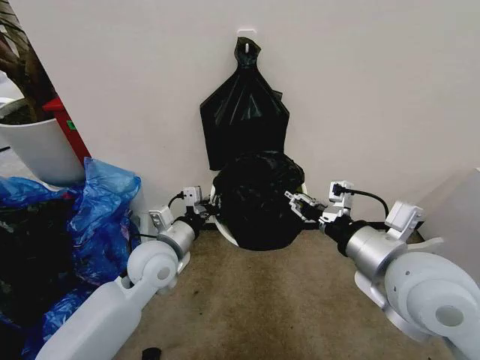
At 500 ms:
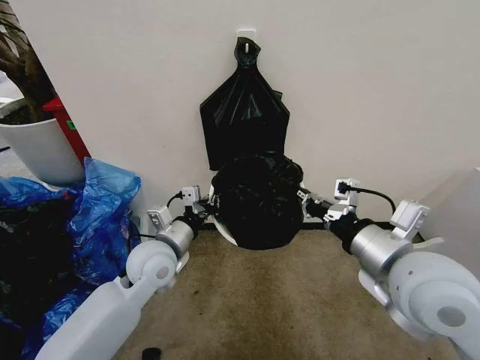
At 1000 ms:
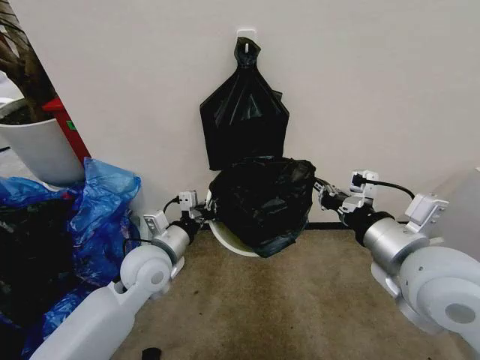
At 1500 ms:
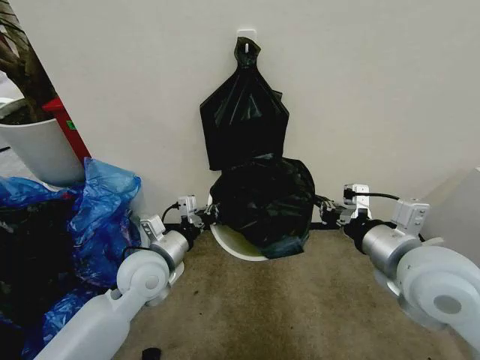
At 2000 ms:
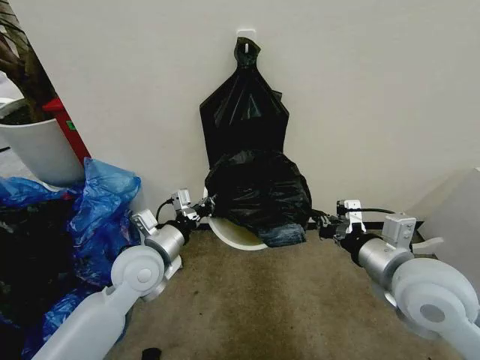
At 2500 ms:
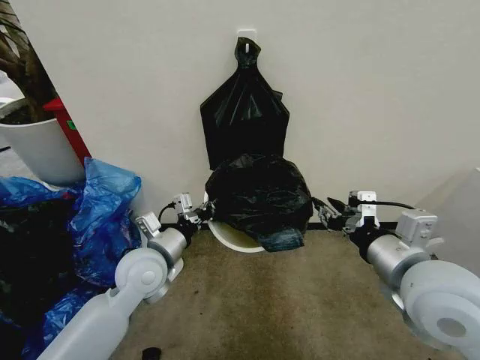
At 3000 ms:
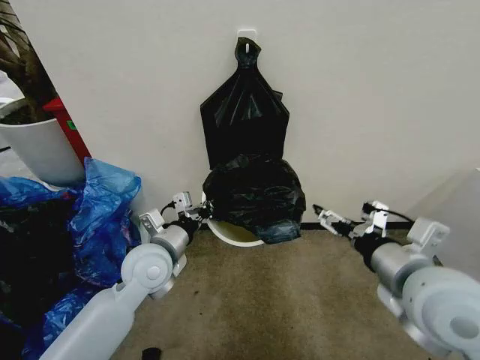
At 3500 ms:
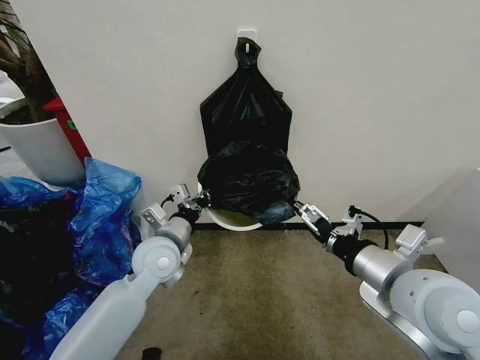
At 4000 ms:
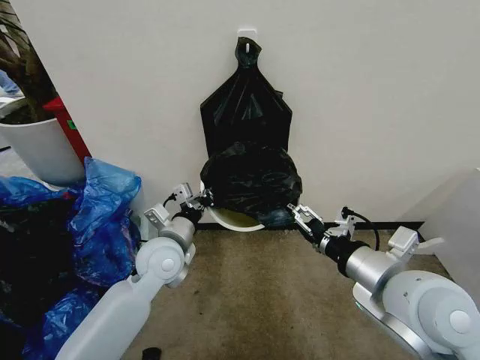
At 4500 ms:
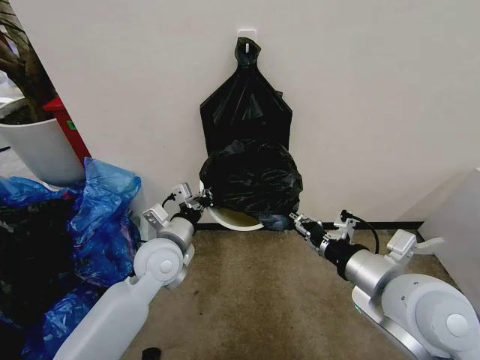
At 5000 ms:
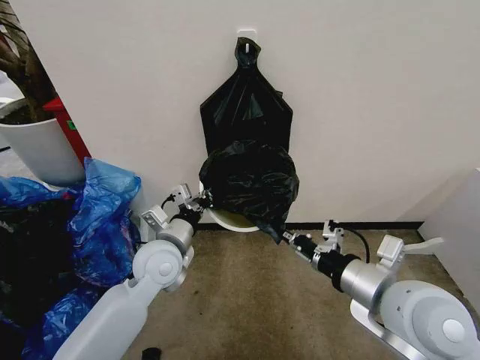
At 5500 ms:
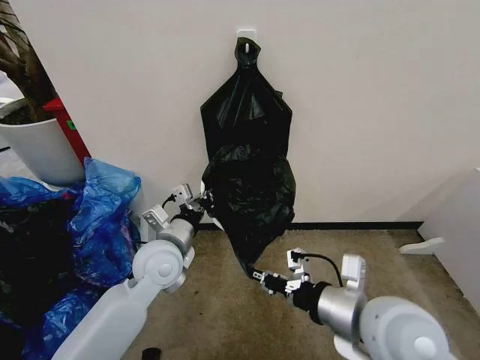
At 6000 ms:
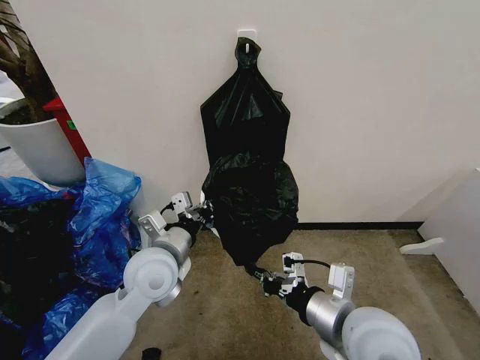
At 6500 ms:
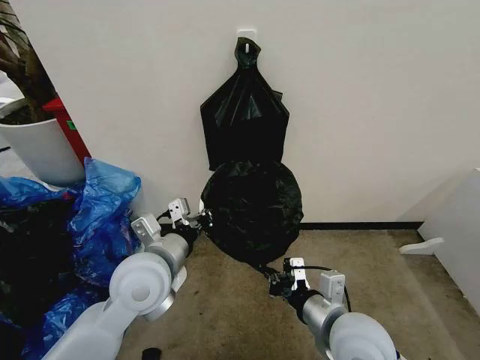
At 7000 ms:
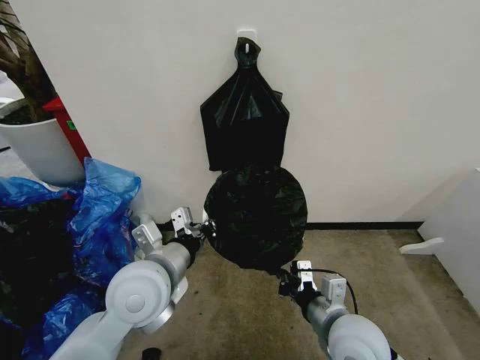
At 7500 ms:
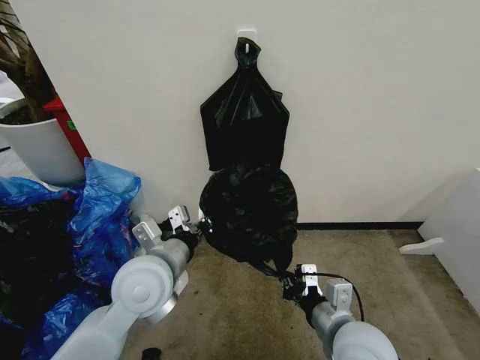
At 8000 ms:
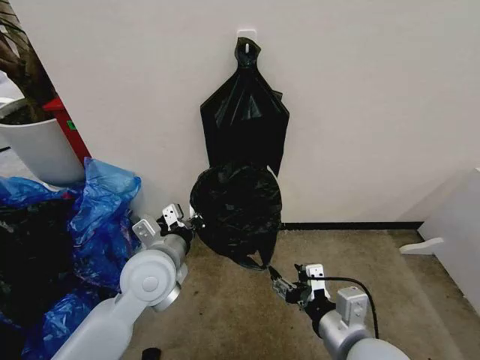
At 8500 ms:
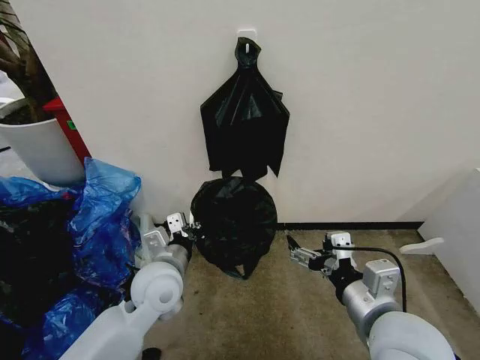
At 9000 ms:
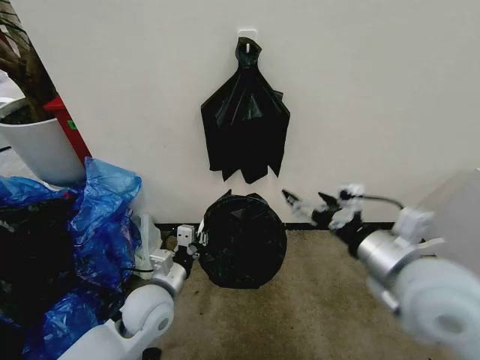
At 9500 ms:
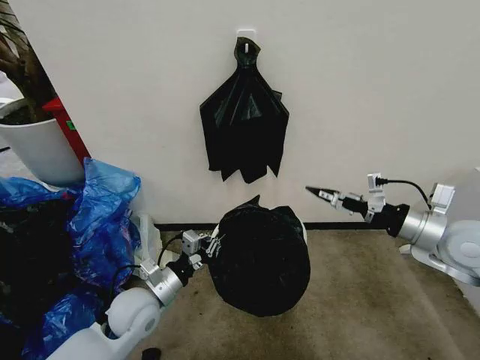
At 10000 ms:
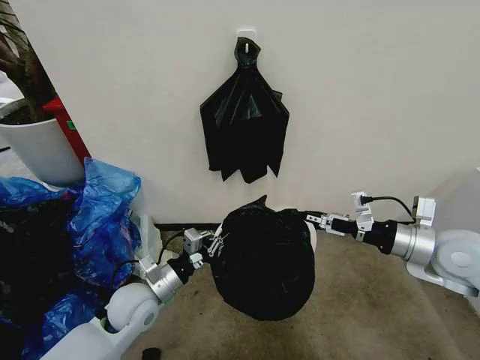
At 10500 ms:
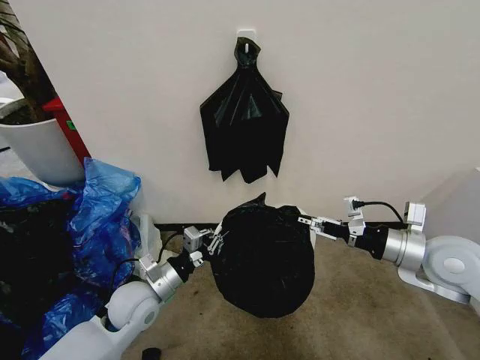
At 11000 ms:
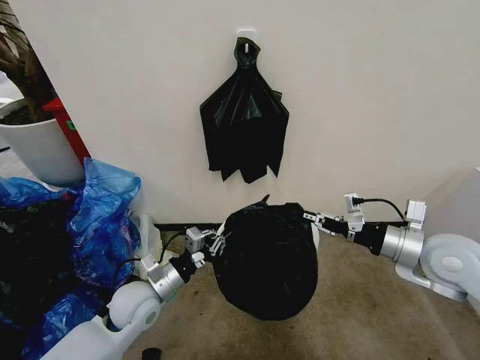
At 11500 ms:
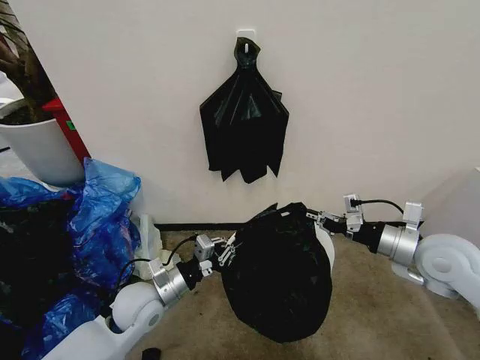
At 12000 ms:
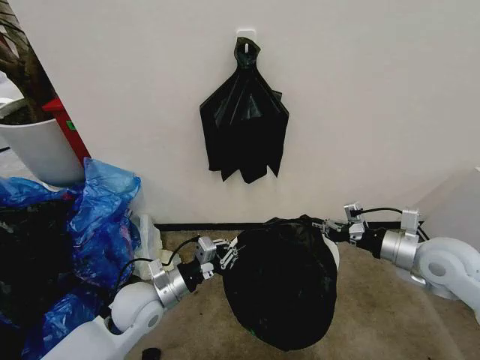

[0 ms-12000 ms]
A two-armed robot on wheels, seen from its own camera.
Task of the whole recording: Place the garbage bag over the trash bin.
0 ms to 2000 ms: The right gripper ends up some 5 cm from where it was.
2000 ms to 4000 ms: The right gripper opens its fingers.
4000 ms to 6000 ms: The left gripper changes place by some 5 cm; the right gripper moves downward, approximately 5 cm, and closes its fingers.
6000 ms to 8000 ms: The right gripper reaches some 10 cm downward, then returns, and opens up.
8000 ms to 10000 ms: The left gripper goes approximately 15 cm downward and to the left; the right gripper goes about 25 cm to the right and forward.
10000 ms to 12000 ms: The right gripper closes.

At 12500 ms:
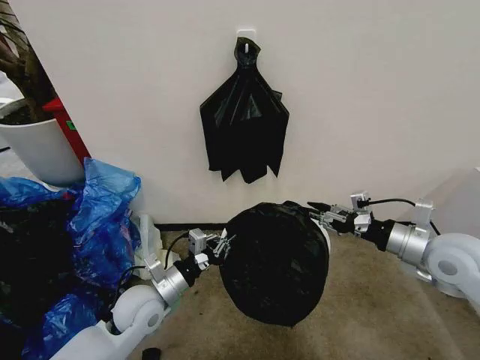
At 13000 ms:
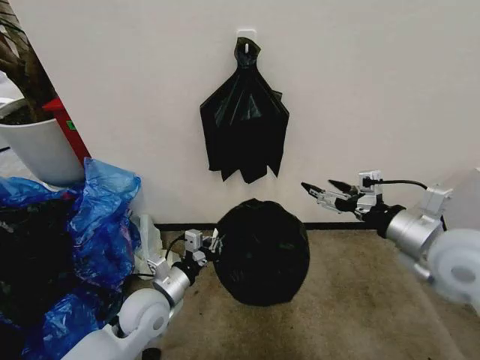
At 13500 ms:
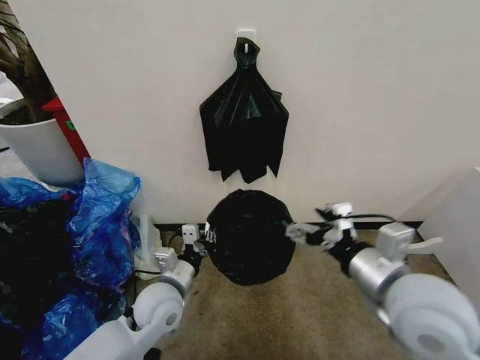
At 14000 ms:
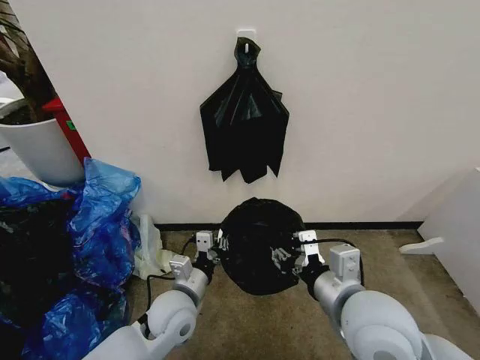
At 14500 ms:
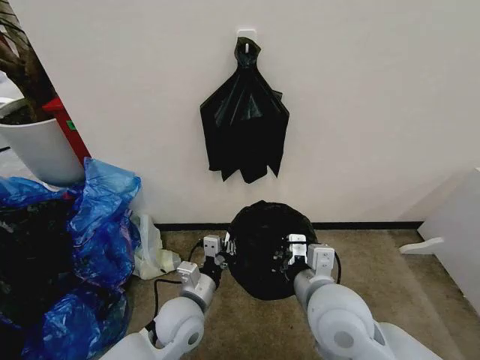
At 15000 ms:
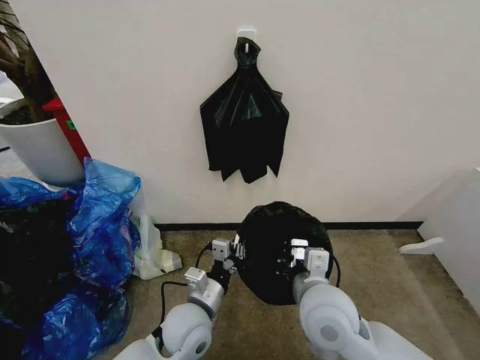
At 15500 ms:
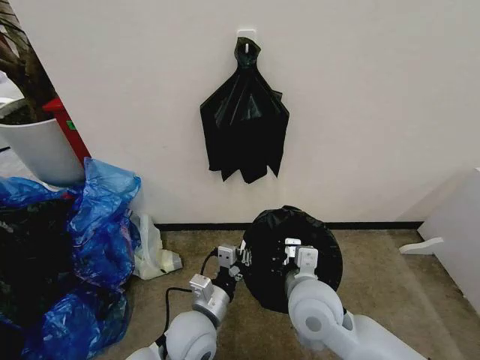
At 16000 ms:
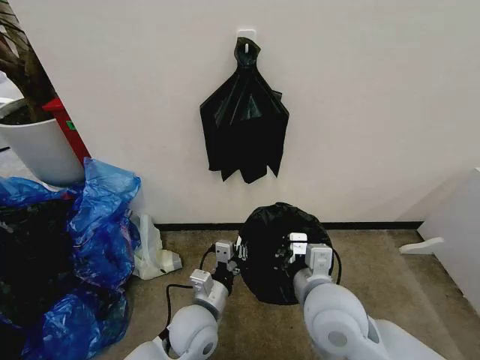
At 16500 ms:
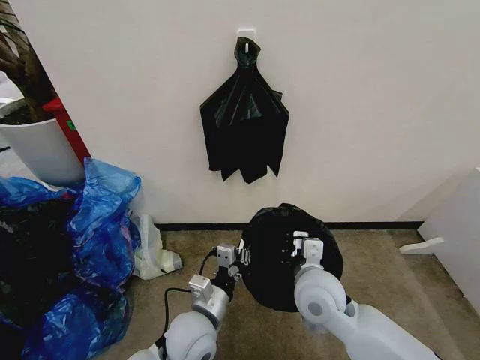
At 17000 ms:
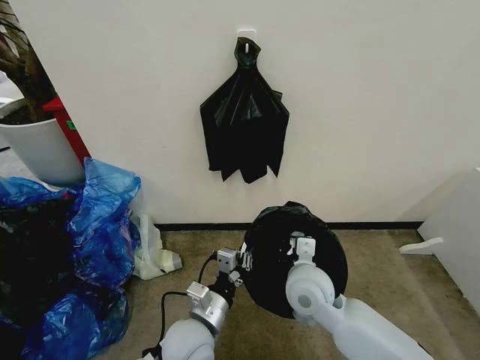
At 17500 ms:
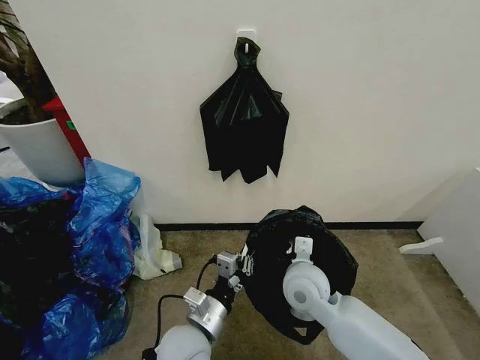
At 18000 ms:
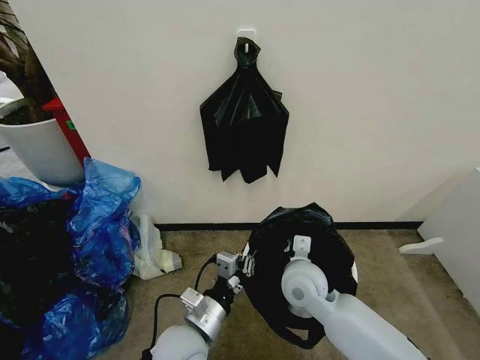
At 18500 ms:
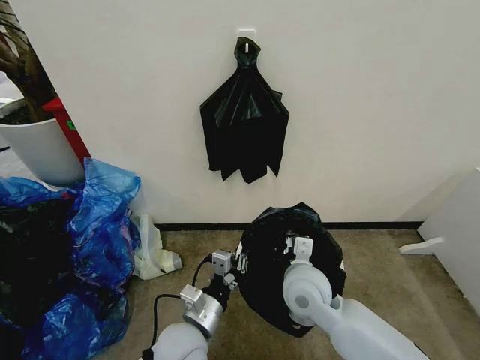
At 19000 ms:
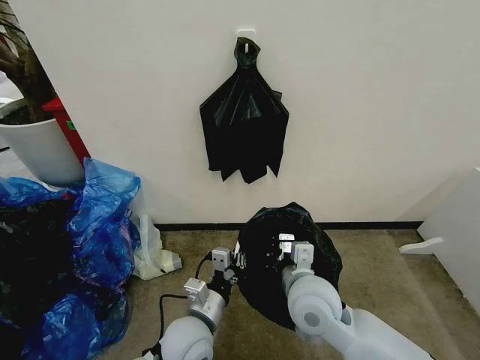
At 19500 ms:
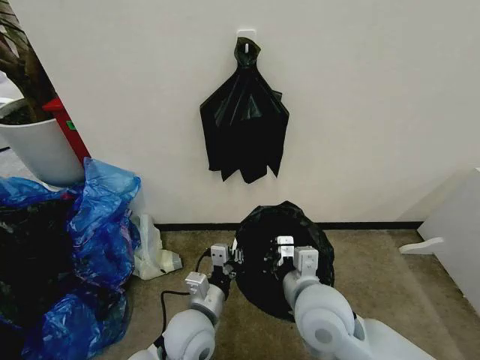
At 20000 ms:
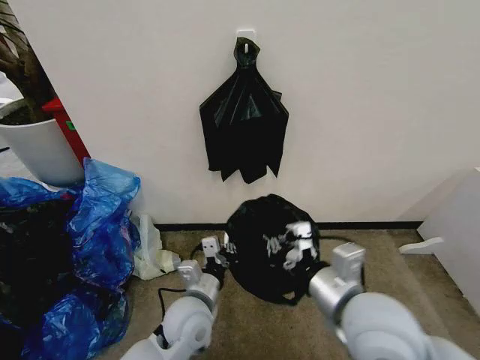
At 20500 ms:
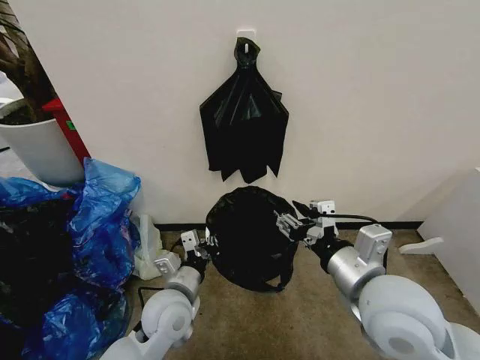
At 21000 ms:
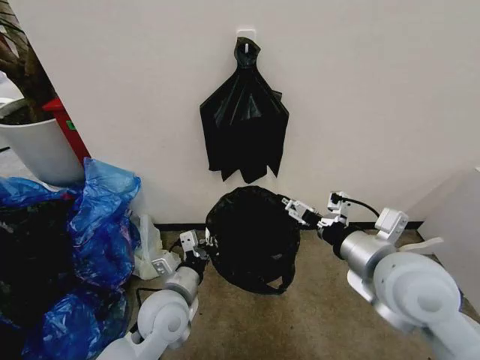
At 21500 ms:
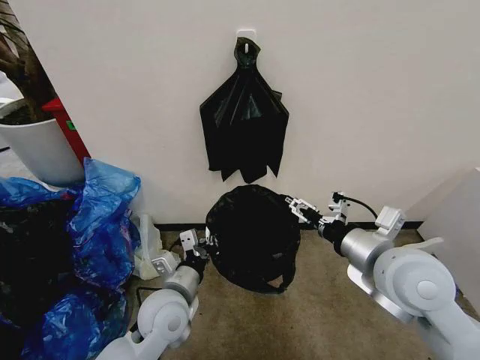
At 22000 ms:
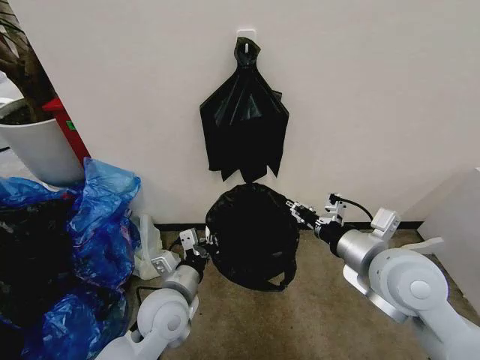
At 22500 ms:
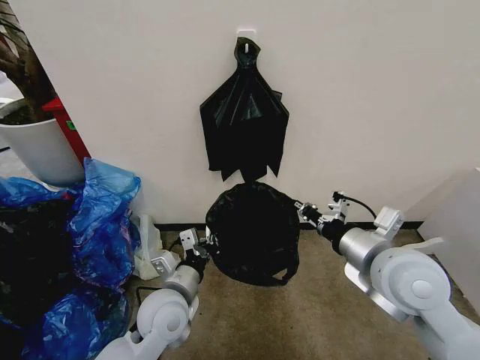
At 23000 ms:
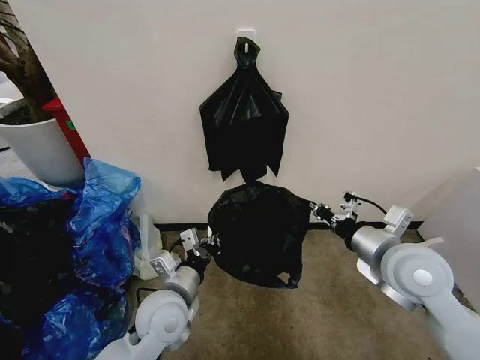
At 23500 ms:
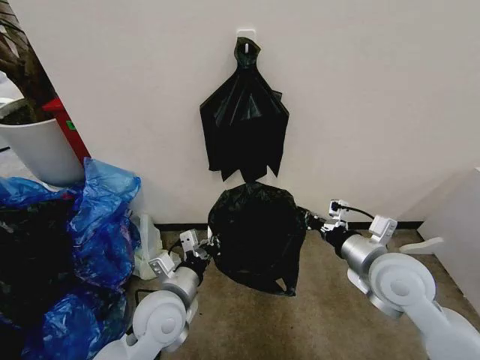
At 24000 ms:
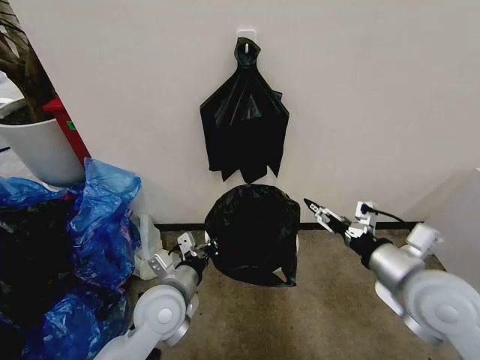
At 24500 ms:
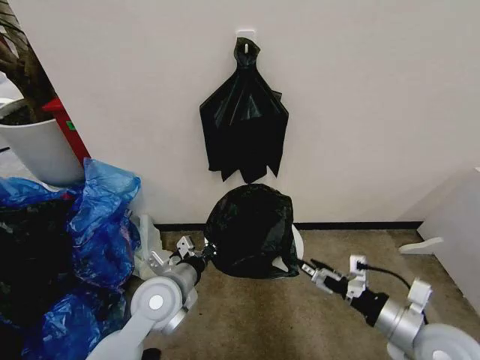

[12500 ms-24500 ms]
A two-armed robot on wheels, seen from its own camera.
Task of the whole recording: Place the garbage bag over the trash bin.
12500 ms to 14500 ms: The left gripper moves to the right, roughly 10 cm; the right gripper moves to the left, roughly 25 cm, and opens, then closes once more.
14500 ms to 16500 ms: The right gripper swings up and down, some 5 cm each way, with 2 reversals.
16500 ms to 18500 ms: The grippers move only a little.
18500 ms to 20500 ms: The right gripper shifts some 15 cm upward, backward and to the right, and opens up. The left gripper heads forward, covering about 5 cm.
20500 ms to 22500 ms: The right gripper shifts by some 5 cm, and closes.
22500 ms to 24500 ms: The right gripper moves downward, to the right and backward, roughly 15 cm, and opens.

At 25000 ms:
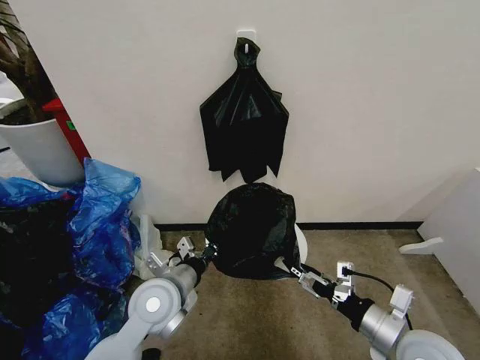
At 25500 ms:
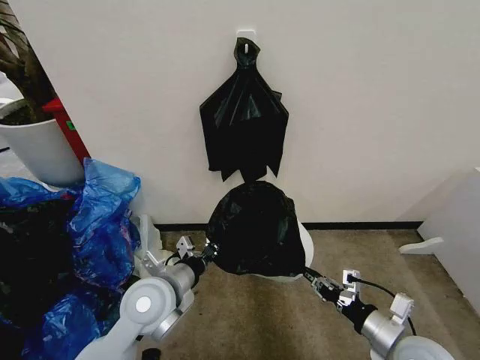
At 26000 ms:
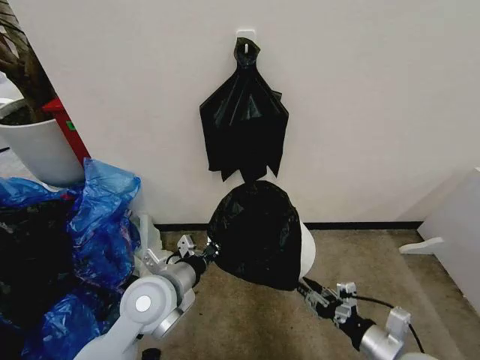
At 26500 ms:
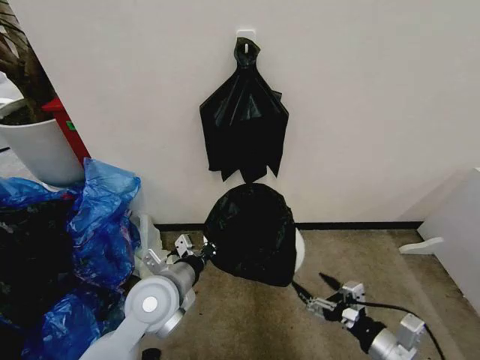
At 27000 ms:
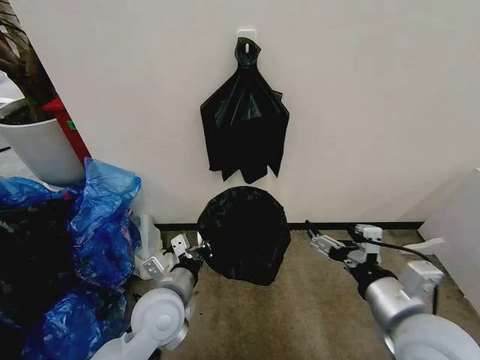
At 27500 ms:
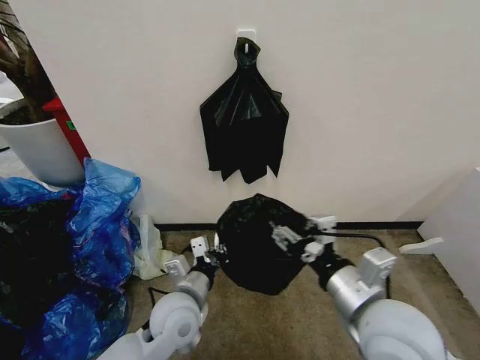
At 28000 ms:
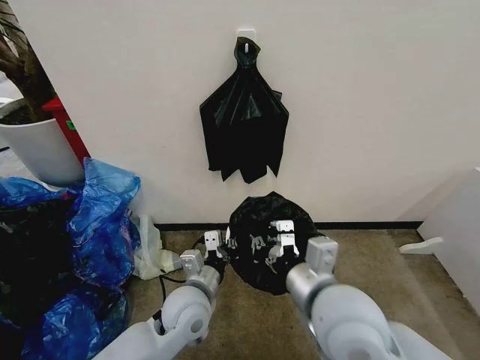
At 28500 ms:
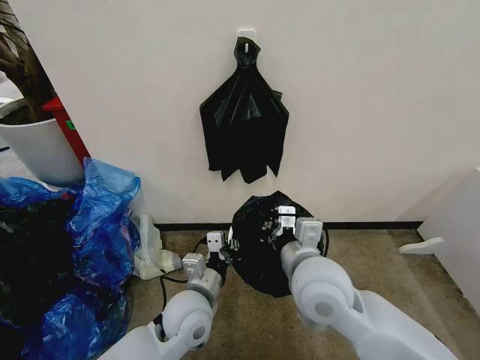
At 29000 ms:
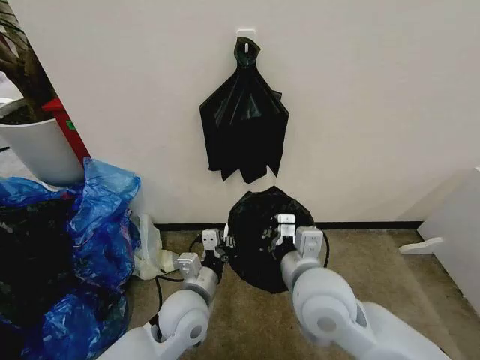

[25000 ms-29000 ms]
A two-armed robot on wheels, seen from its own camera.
Task of the whole recording: Place the garbage bag over the trash bin.
25000 ms to 27000 ms: The right gripper heads upward and to the left, covering approximately 10 cm, and closes, then opens again.
27000 ms to 29000 ms: The right gripper shifts about 15 cm to the left and forward, and closes; the left gripper changes place by some 5 cm.
